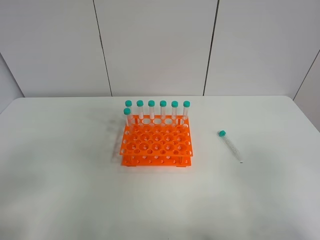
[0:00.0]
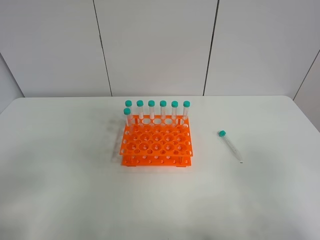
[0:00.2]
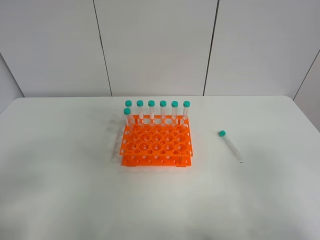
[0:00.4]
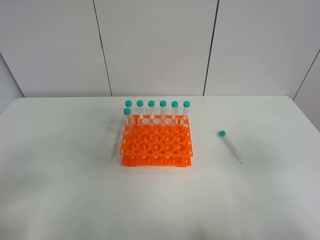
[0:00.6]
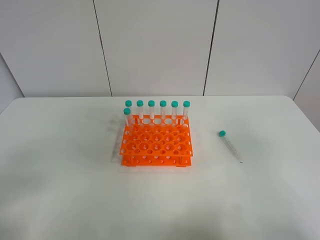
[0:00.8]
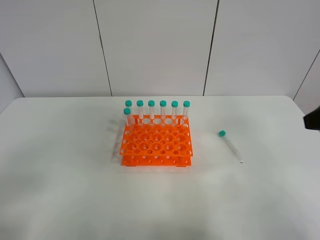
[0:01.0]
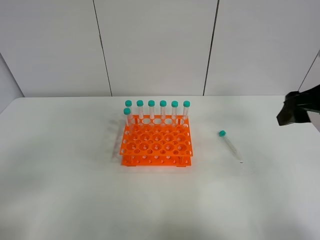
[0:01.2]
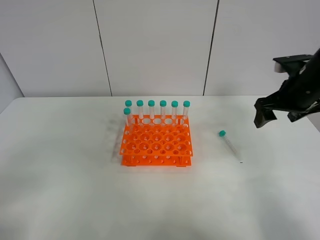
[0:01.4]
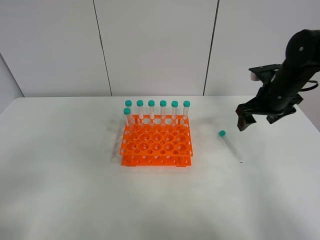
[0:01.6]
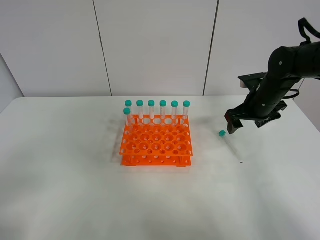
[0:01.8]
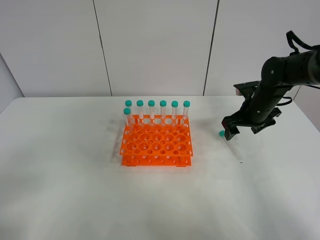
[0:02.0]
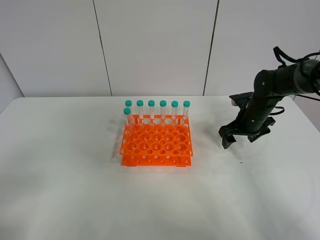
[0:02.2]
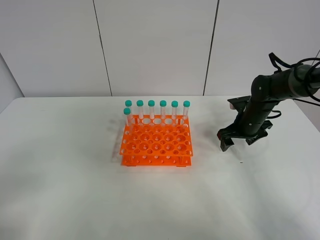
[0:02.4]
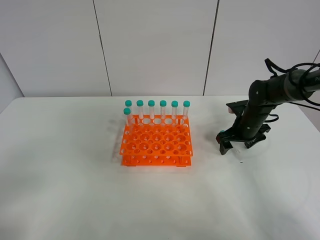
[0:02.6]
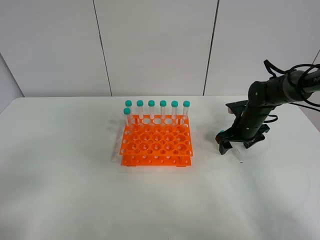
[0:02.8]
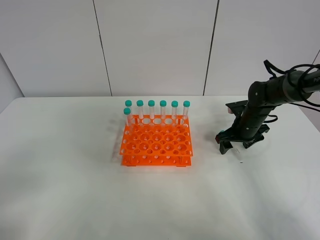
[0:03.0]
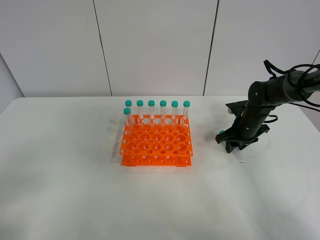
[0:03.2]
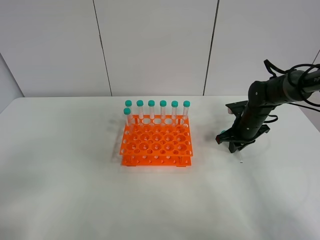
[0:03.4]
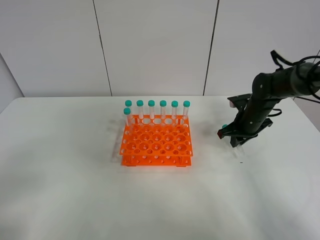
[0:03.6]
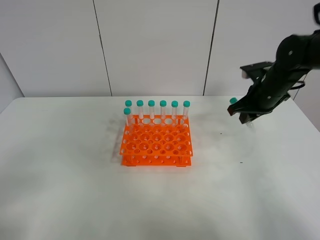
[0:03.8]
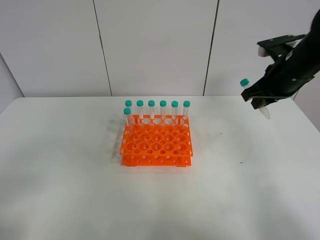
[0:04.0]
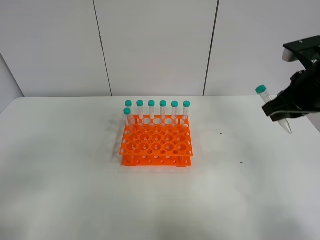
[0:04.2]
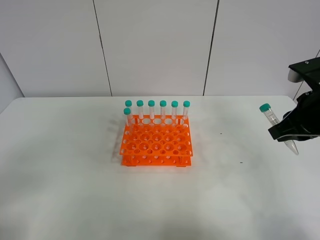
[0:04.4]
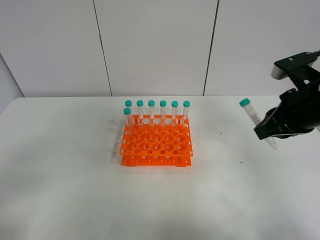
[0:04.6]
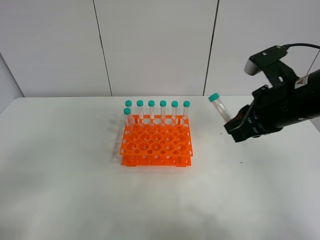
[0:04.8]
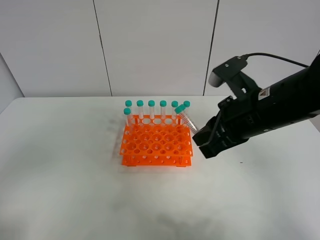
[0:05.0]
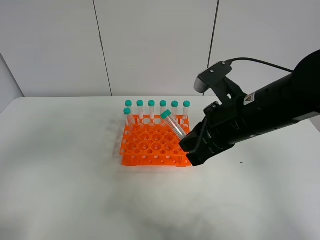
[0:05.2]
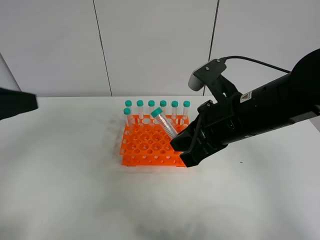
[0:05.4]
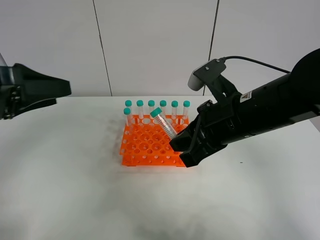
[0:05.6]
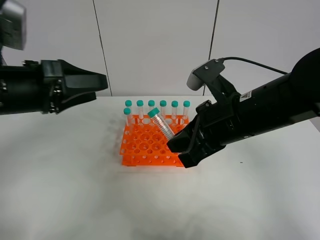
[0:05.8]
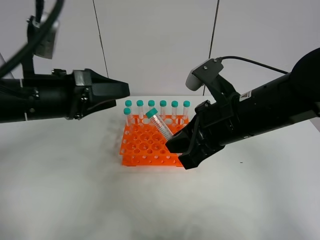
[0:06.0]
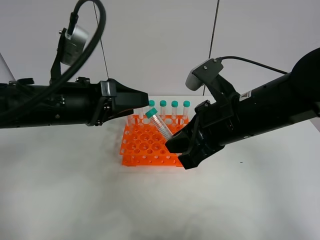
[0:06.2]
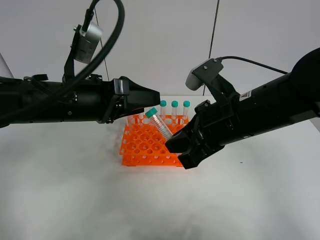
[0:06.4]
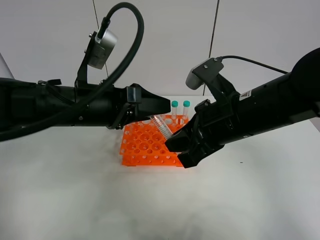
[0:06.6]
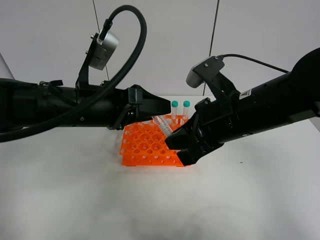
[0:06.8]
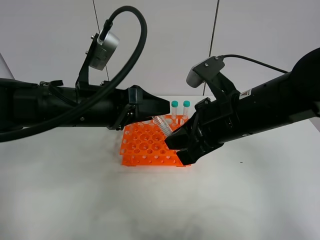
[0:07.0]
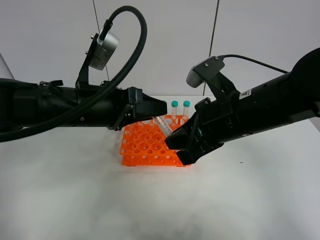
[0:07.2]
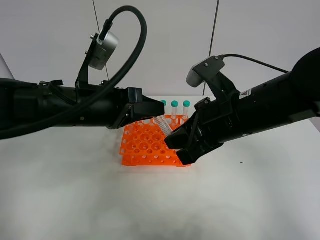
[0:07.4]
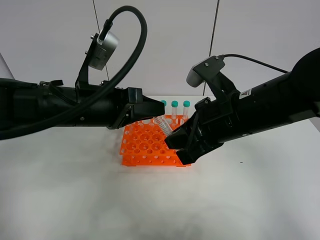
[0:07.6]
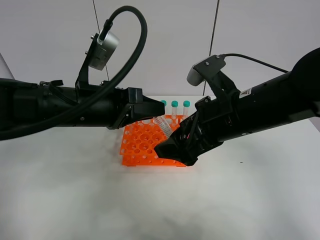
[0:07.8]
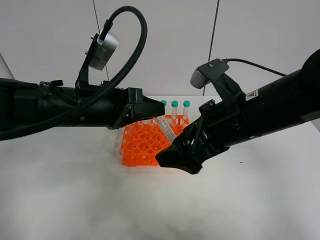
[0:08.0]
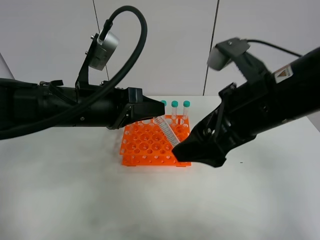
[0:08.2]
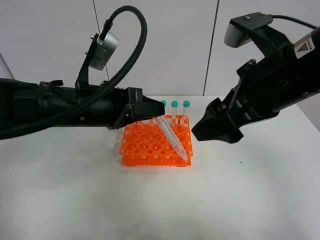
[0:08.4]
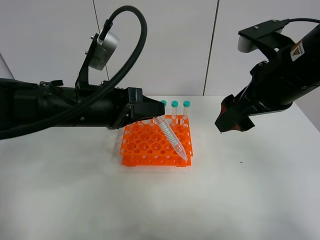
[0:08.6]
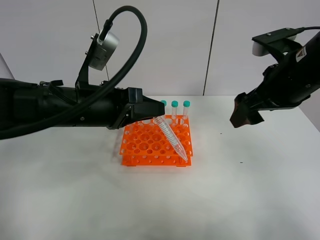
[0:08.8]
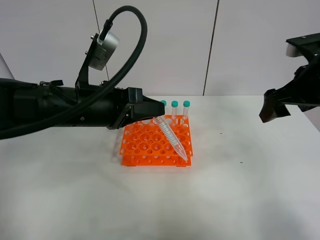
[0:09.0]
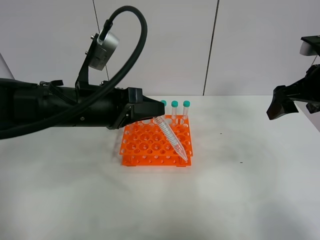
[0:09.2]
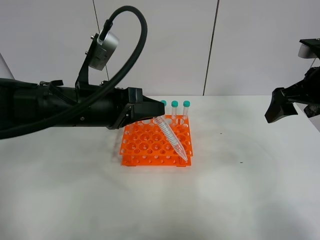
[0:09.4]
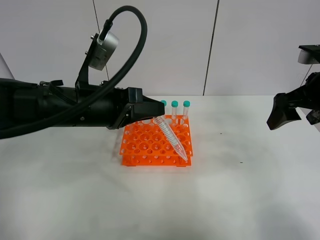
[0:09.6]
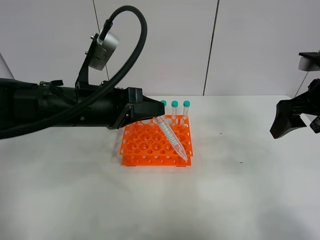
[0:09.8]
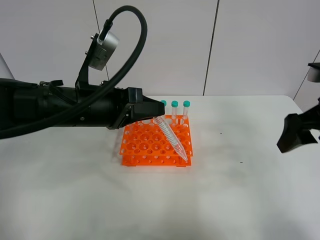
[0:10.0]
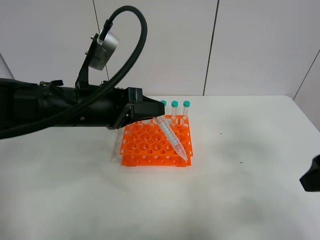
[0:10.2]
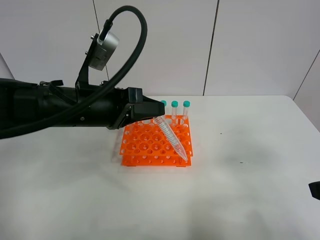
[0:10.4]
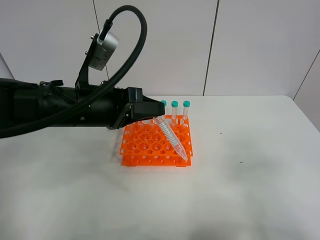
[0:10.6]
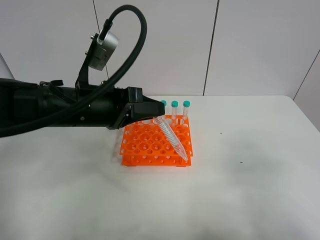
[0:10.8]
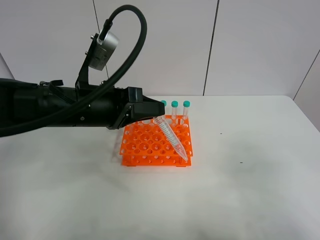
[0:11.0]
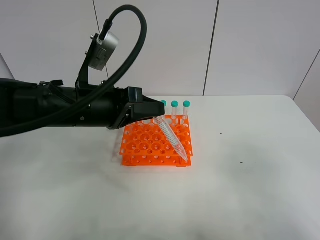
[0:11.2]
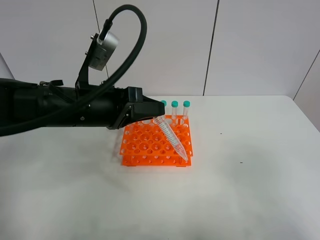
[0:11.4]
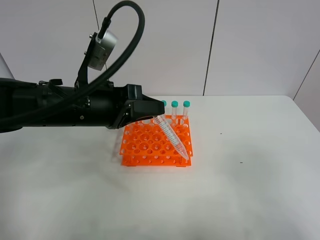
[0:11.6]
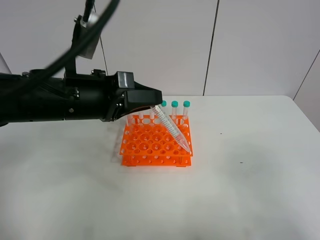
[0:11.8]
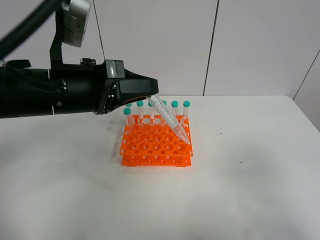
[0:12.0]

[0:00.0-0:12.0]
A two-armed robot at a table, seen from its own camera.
Task of the whole recording: Put the test tube on the table back onto the test tube rack.
Step, 0:00.0 to 0:03.6: Pick up the test tube with the right gripper.
Step, 0:03.8 to 0:08.0: Move the test tube from the right gripper to the left gripper.
0:00.0 to 0:01.6: The right gripper goes approximately 35 cm forward.
0:01.6 to 0:03.0: The right gripper heads downward, covering approximately 10 cm.
0:03.0 to 0:04.4: The right gripper travels upward and backward by some 25 cm, and closes its fingers.
0:04.4 to 0:06.0: The right gripper travels to the left by about 15 cm. Meanwhile the left gripper is displaced forward and to the right by about 25 cm.
0:06.0 to 0:07.6: The left gripper heads to the right, covering roughly 5 cm, and closes.
0:07.6 to 0:09.0: The right gripper goes approximately 15 cm to the right and forward, and opens its fingers.
0:09.0 to 0:10.4: The right gripper shifts roughly 20 cm backward.
0:10.4 to 0:12.0: The right gripper travels backward by approximately 10 cm.

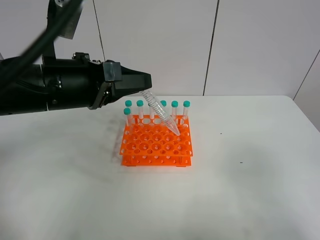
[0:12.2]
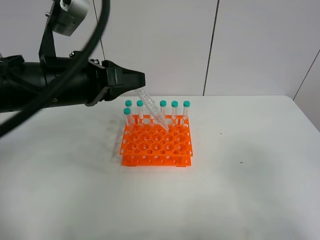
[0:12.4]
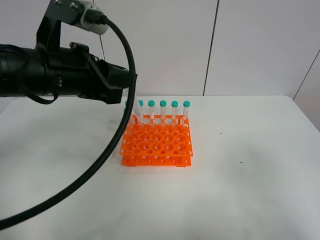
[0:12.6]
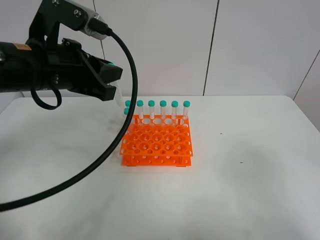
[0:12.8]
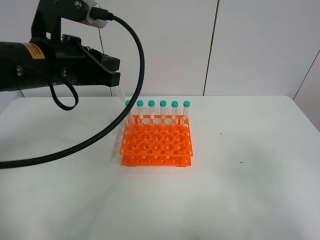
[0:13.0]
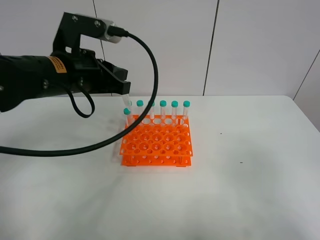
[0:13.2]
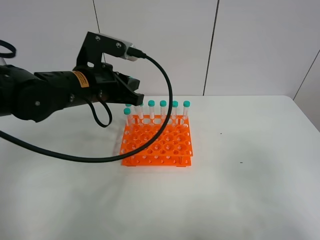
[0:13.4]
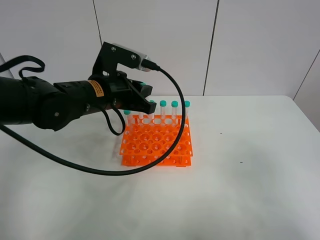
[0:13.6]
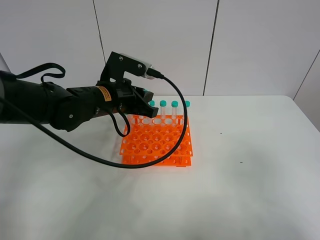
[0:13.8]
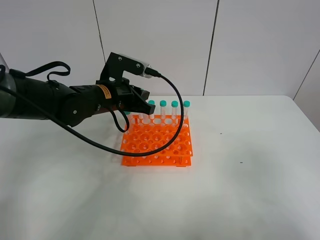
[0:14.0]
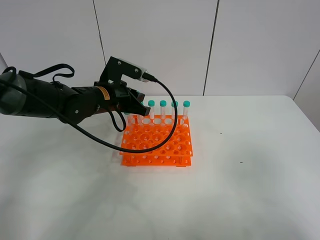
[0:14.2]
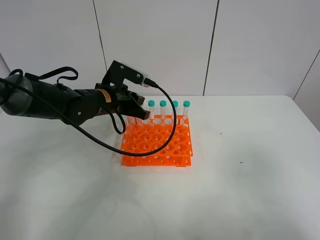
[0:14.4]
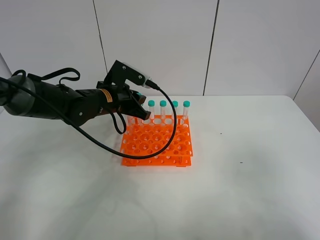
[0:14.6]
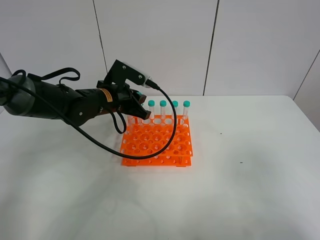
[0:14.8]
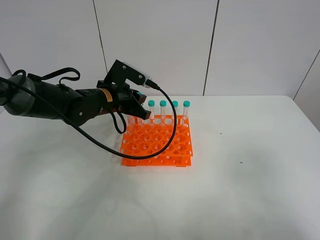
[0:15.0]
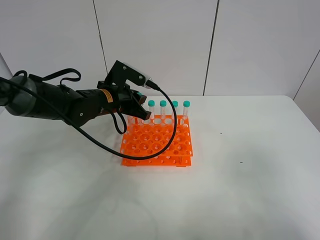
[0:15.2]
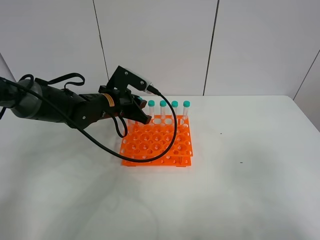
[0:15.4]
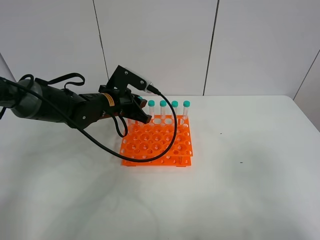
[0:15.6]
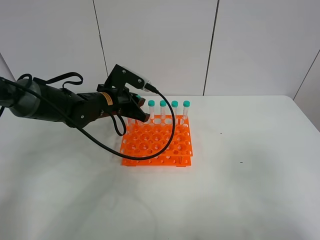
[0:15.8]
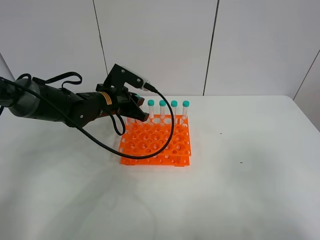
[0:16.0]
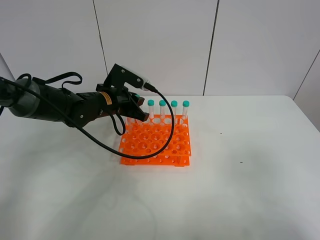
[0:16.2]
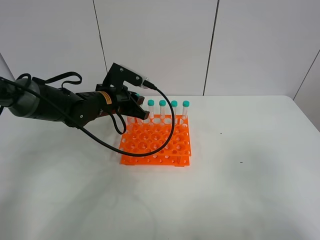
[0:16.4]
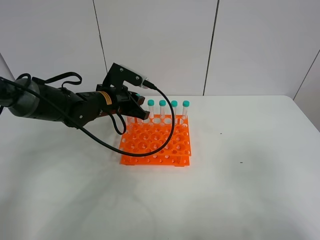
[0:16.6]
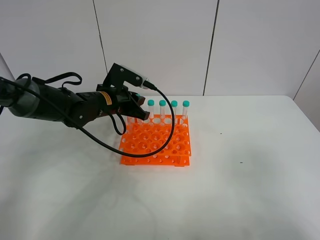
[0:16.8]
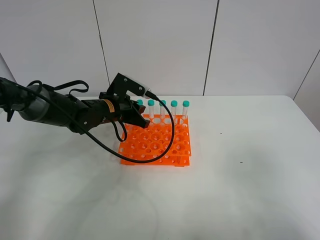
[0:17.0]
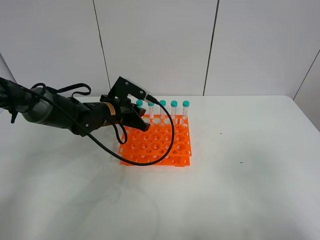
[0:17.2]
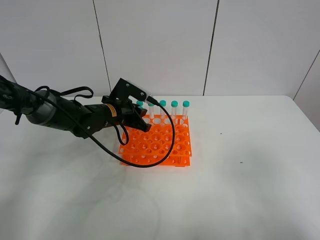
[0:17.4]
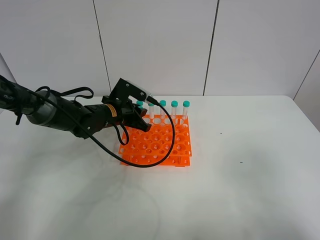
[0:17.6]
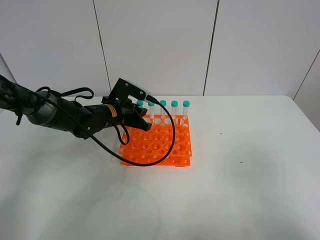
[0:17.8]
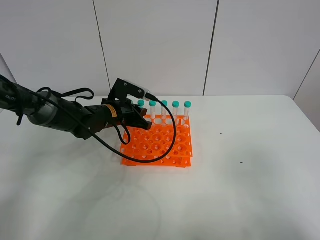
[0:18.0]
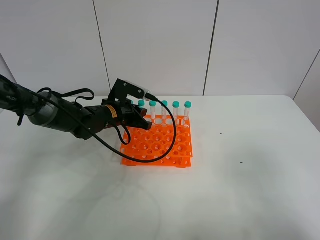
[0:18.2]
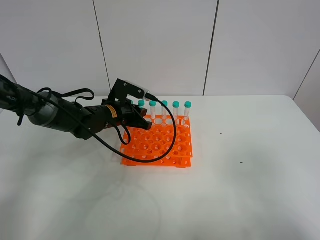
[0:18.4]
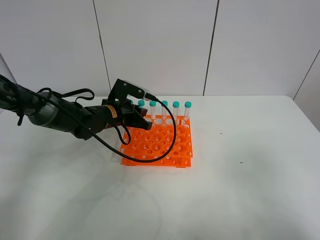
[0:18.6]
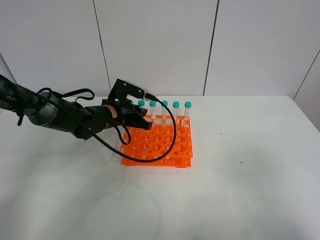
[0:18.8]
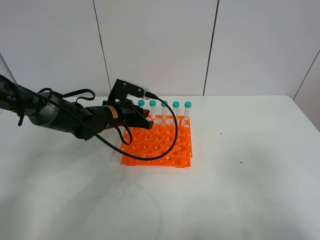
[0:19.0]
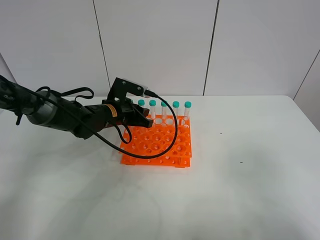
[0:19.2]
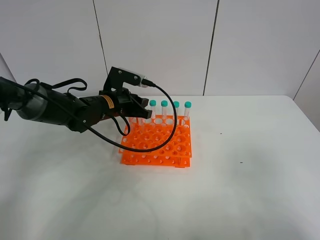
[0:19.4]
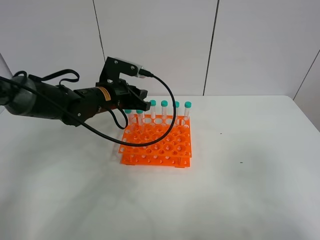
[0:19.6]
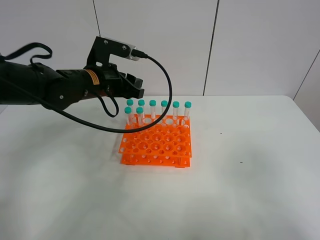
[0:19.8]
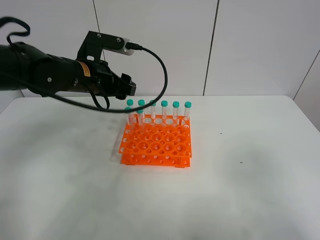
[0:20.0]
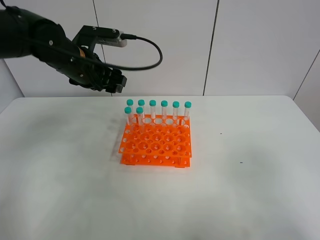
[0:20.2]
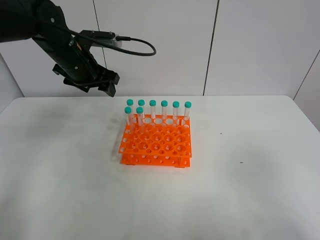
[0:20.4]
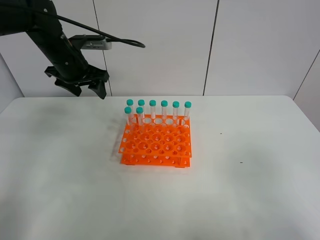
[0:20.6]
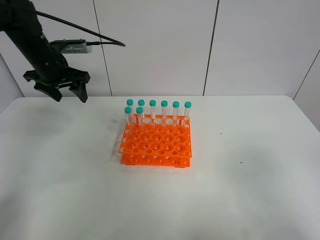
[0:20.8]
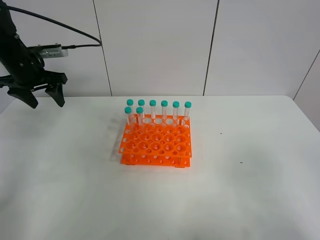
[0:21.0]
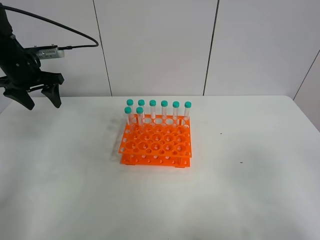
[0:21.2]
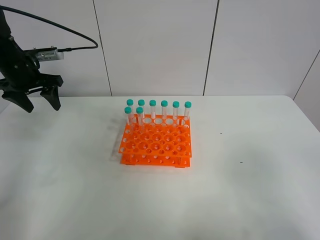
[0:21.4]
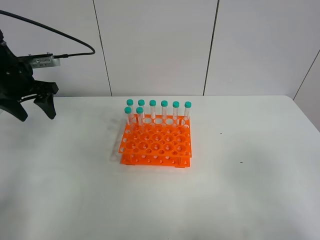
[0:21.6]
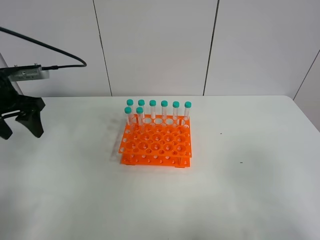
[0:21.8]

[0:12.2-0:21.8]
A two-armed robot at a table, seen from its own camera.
Task of the whole recording: Put the test tube on the table back onto the test tube rack.
Step, 0:12.2 to 0:19.2: Place the test tube on the test tube rack with the left gripper.
0:12.2 to 0:13.8: The left gripper shifts about 10 cm forward and downward.
0:13.8 to 0:15.4: The left gripper changes place by about 5 cm.
0:15.4 to 0:18.6: The grippers stay close to where they were, moving slightly.
0:18.6 to 0:20.2: The left gripper is displaced upward by roughly 15 cm, and opens up.
0:20.2 to 0:21.8: The left gripper shifts approximately 15 cm to the left and backward.
